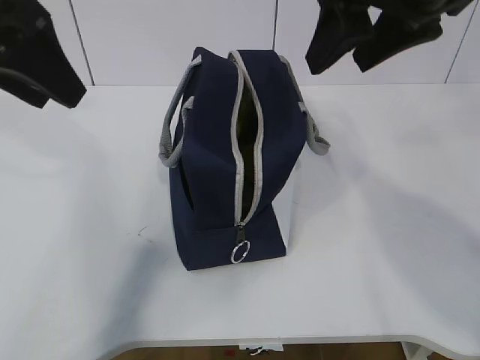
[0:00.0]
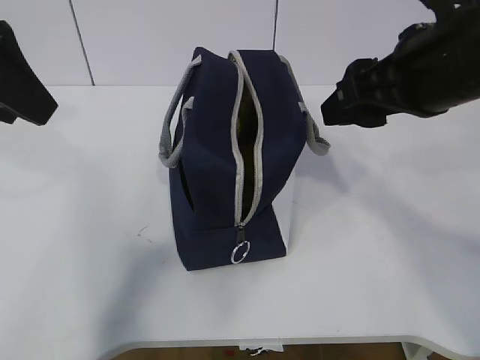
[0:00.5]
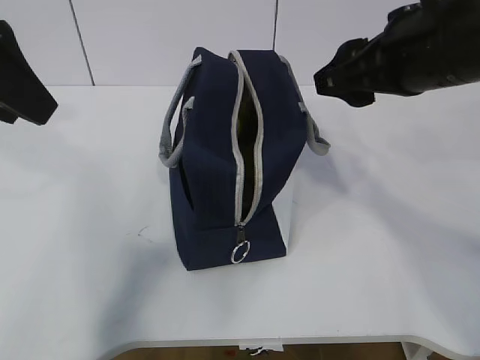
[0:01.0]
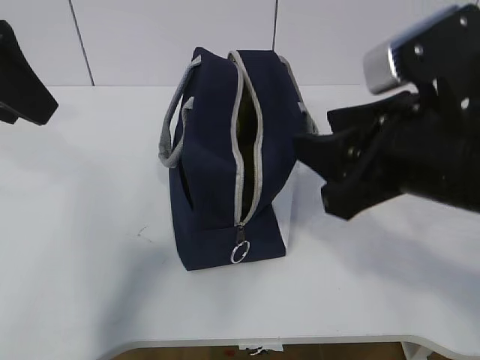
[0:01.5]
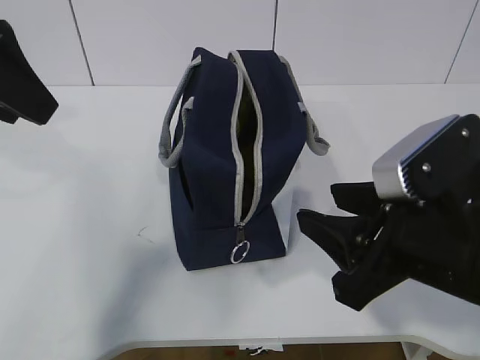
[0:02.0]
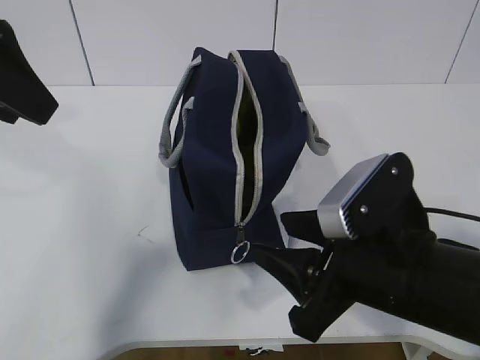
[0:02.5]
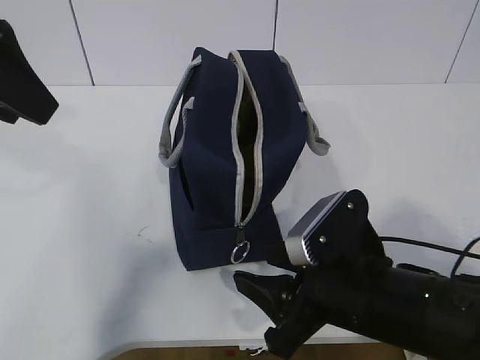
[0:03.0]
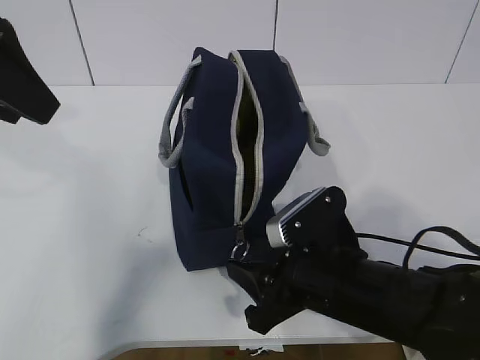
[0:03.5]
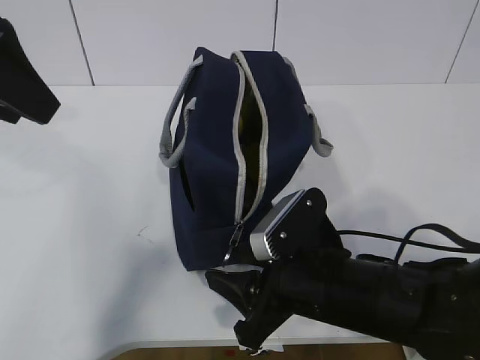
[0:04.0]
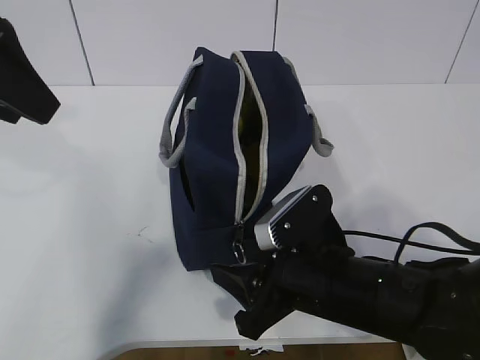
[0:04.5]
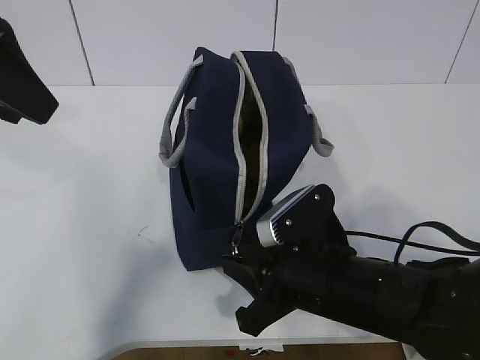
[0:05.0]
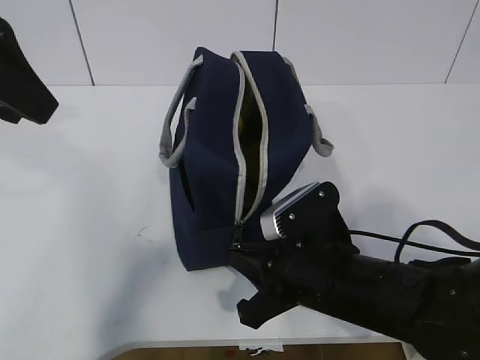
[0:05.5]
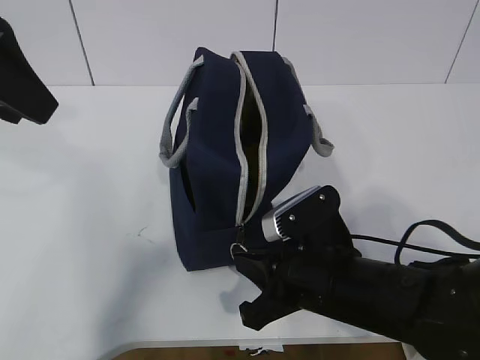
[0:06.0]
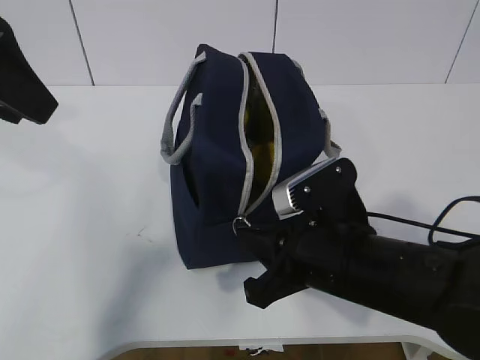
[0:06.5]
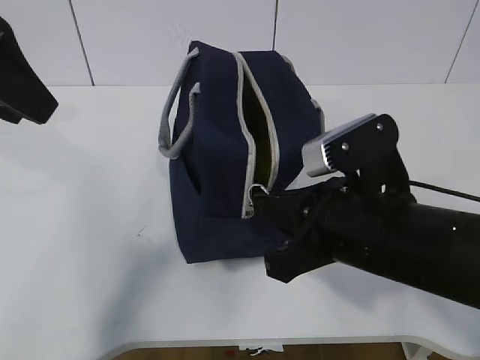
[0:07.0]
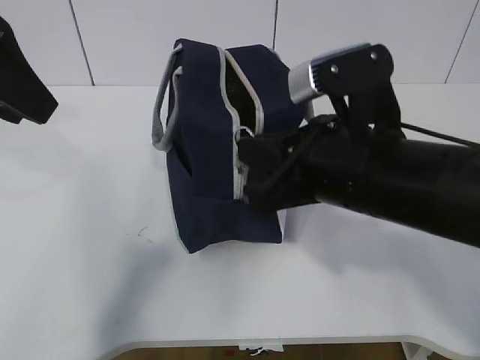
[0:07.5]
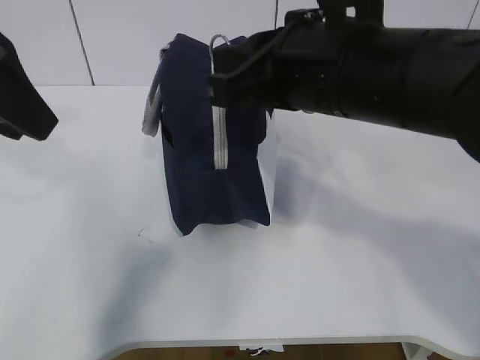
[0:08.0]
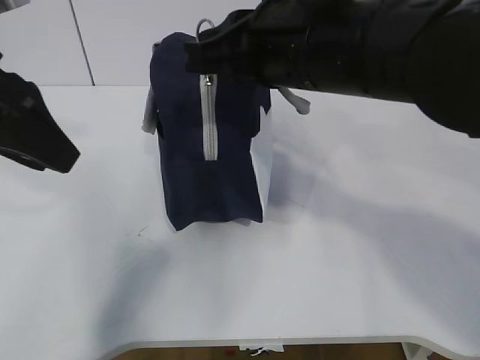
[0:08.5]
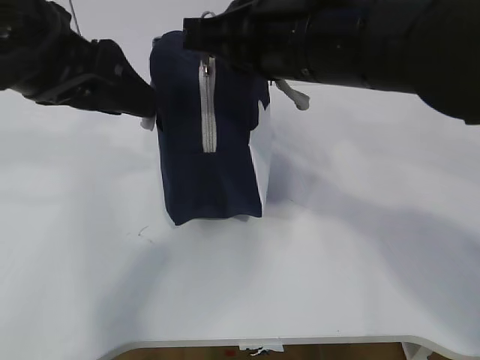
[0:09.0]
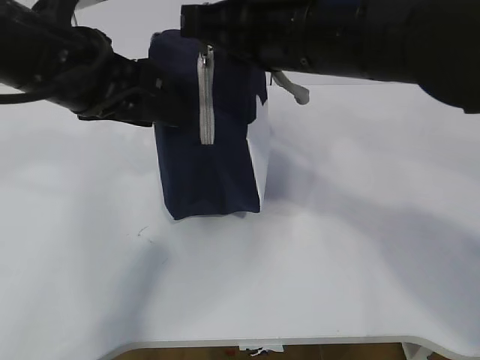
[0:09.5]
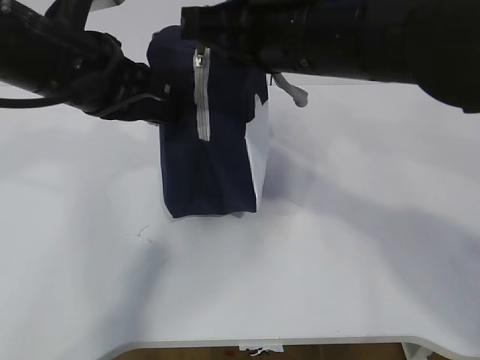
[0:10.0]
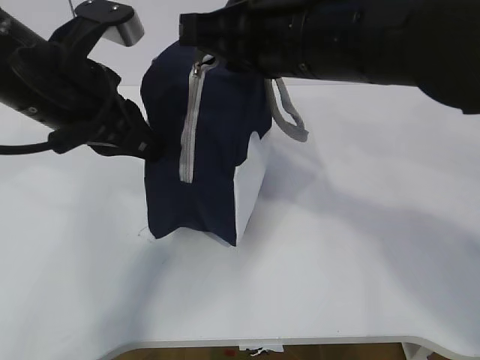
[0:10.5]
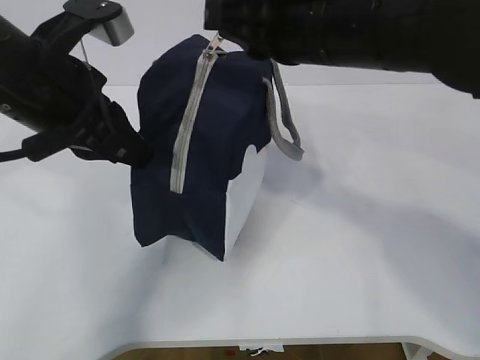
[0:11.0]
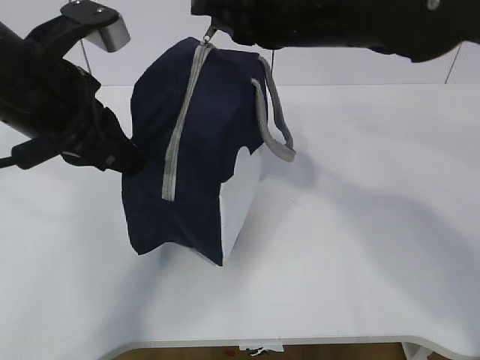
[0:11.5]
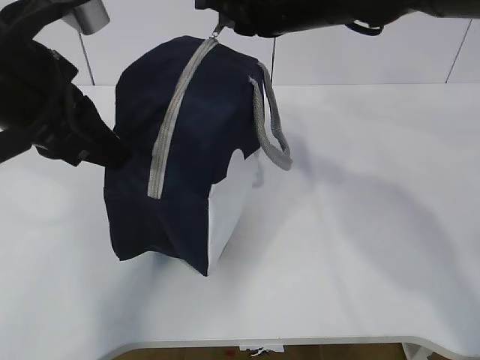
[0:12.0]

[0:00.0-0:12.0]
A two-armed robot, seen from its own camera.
Step, 0:06.0 to 0:08.5: Pull the zipper with your right hand.
0:00.0 to 0:02.0: The right gripper goes some 20 cm downward and backward.
0:02.0 to 0:04.0: The right gripper shifts some 10 cm downward and to the left.
0:04.0 to 0:06.0: The right gripper closes.
0:06.0 to 0:08.0: The right gripper travels upward by about 20 cm.
0:08.0 to 0:10.0: The left gripper heads downward and to the right, covering roughly 10 cm, and closes its fingers.
0:10.0 to 0:12.0: The left gripper changes place by roughly 5 cm; the right gripper moves forward, some 10 cm.

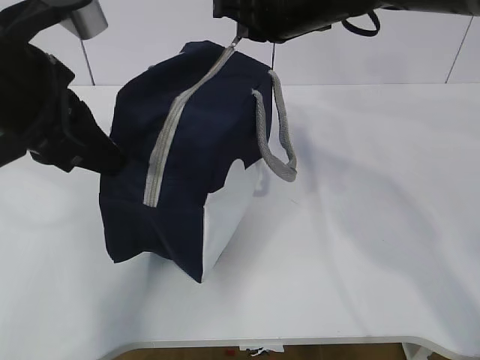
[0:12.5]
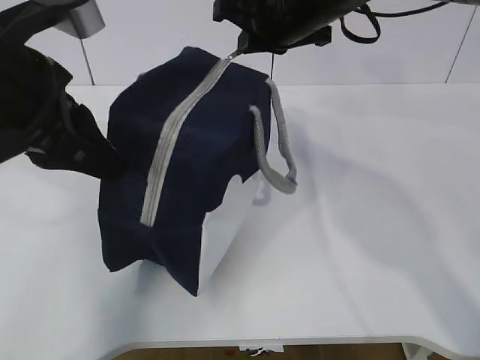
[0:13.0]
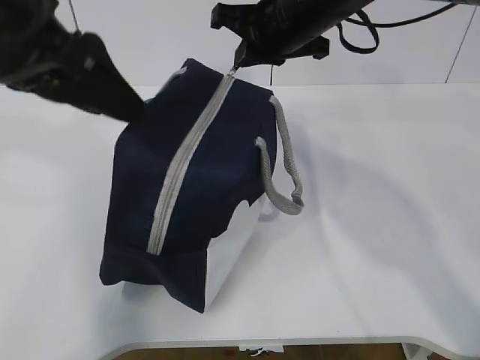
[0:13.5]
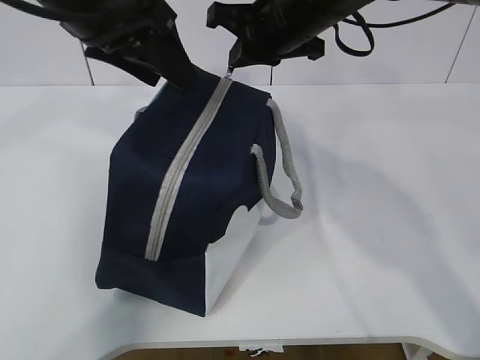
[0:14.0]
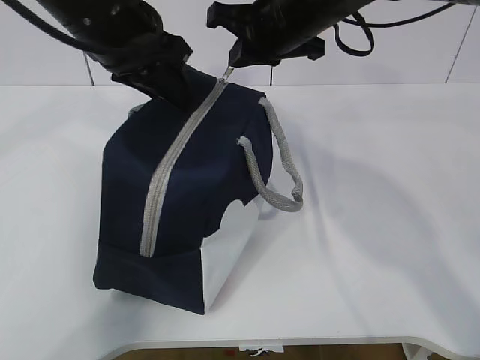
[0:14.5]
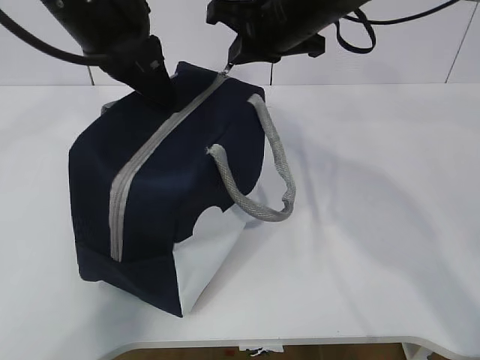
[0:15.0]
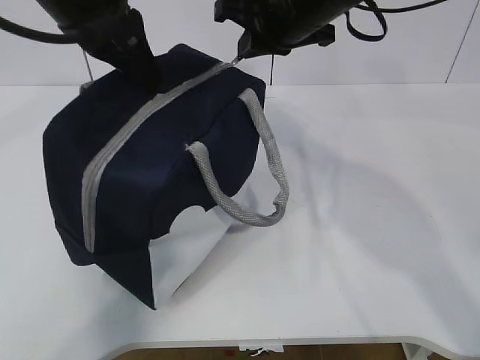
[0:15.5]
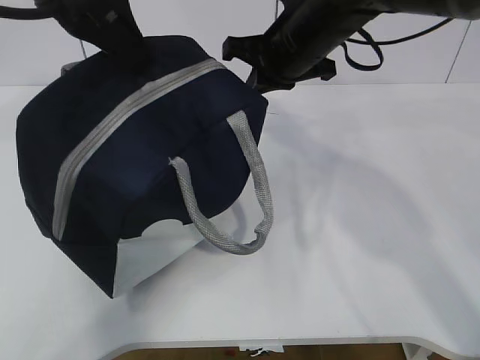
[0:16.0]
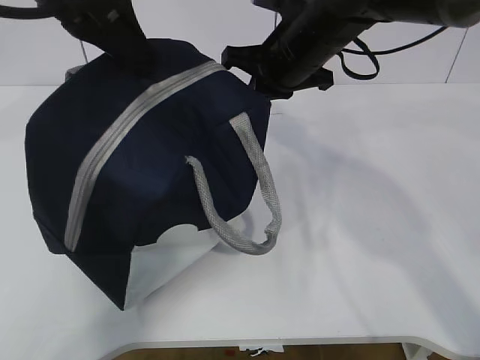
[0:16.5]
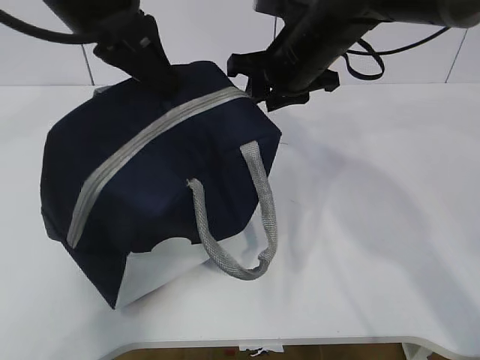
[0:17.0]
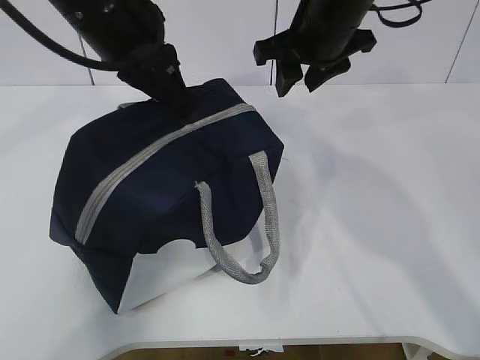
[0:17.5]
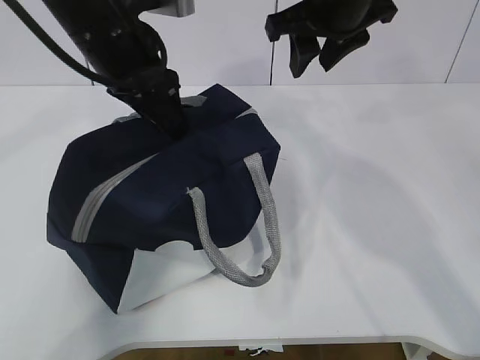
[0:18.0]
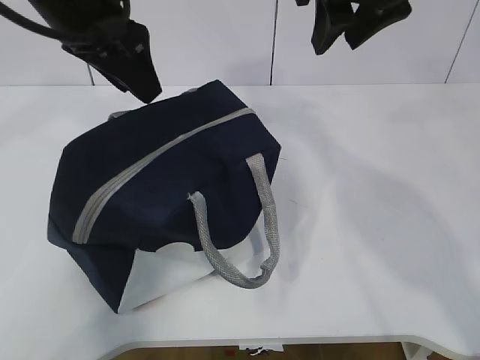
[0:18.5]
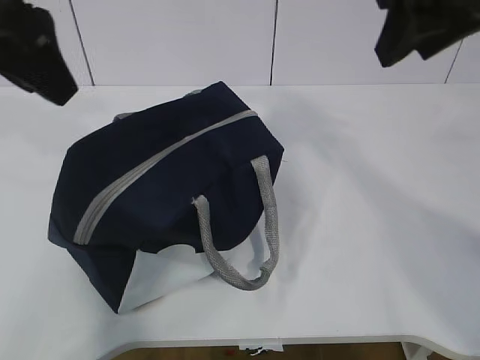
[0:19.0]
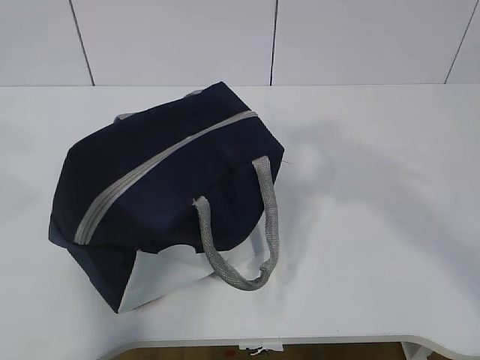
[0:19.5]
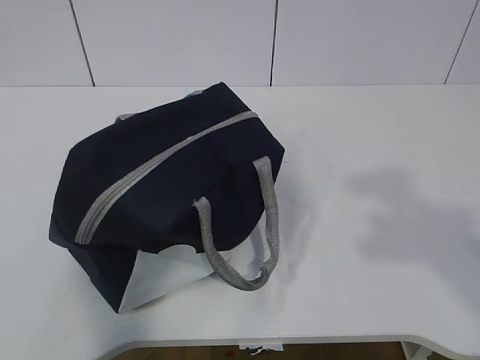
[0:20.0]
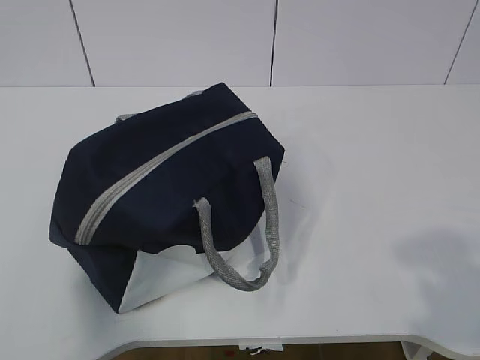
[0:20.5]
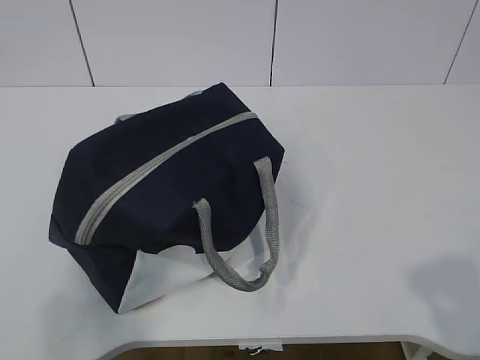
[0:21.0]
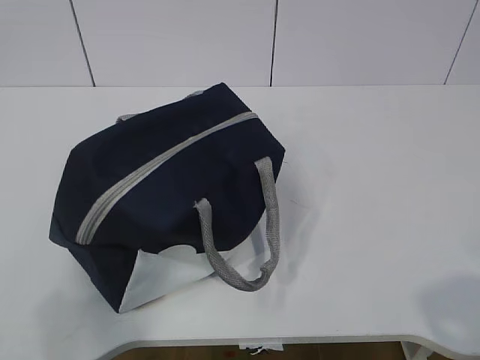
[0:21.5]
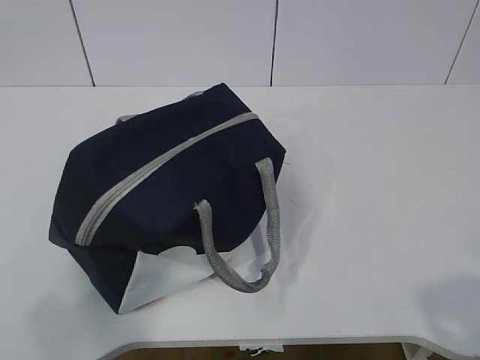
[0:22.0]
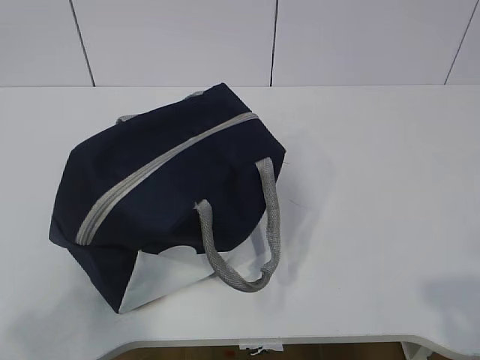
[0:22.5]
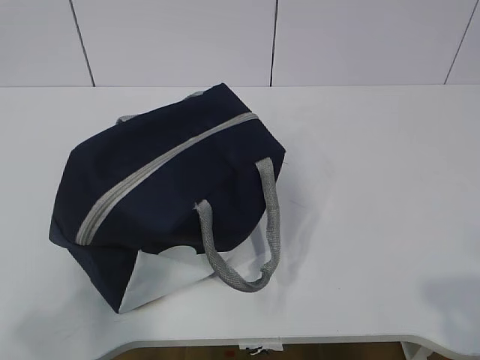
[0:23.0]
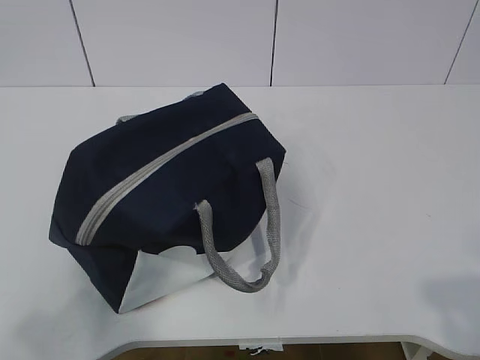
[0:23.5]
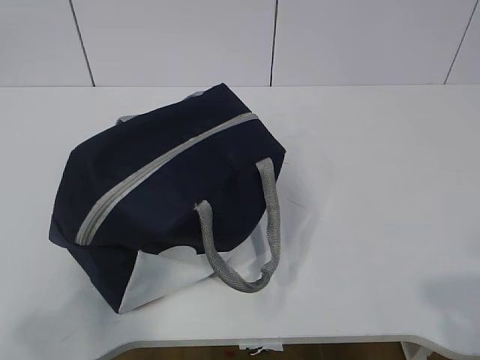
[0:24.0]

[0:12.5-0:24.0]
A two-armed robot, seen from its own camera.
0:12.5 to 0:14.5: The left gripper heads forward, covering roughly 10 cm, and opens its fingers.
0:14.5 to 0:16.5: The left gripper heads upward, covering about 5 cm, and closes.
0:16.5 to 0:18.5: The left gripper opens; the right gripper heads upward and backward, covering about 15 cm, and opens up.
0:18.5 to 0:20.0: The right gripper travels backward and to the right by approximately 35 cm. Meanwhile the left gripper is displaced backward and to the left by some 35 cm.
0:20.0 to 0:22.0: The left gripper goes about 15 cm downward. Meanwhile the right gripper travels downward and backward by some 15 cm.

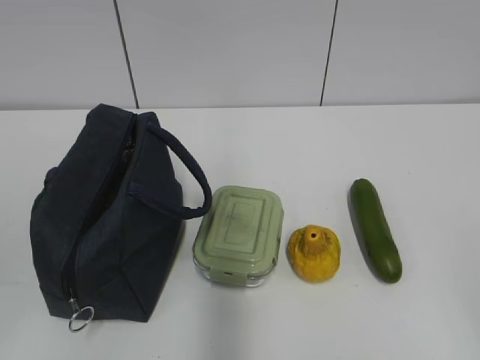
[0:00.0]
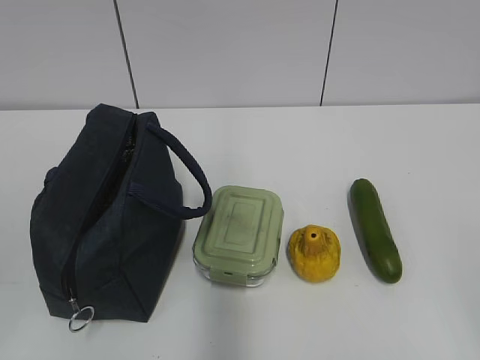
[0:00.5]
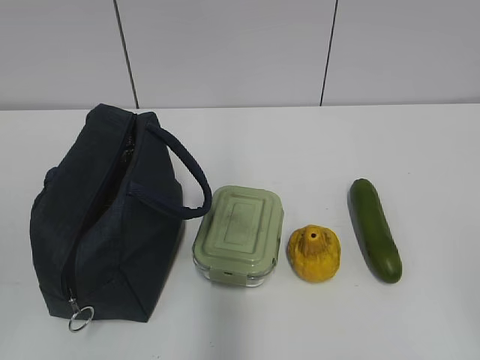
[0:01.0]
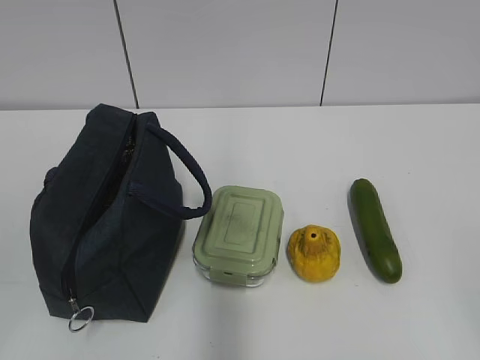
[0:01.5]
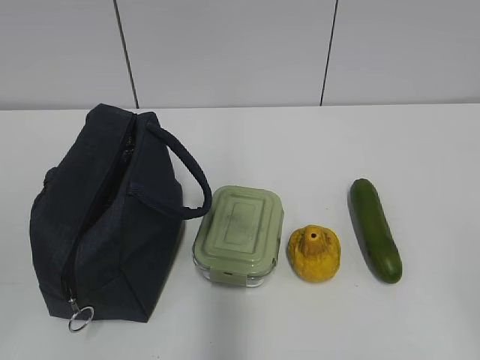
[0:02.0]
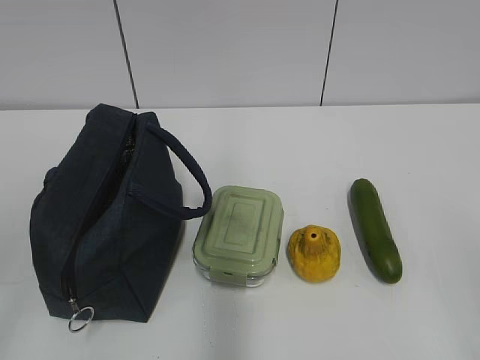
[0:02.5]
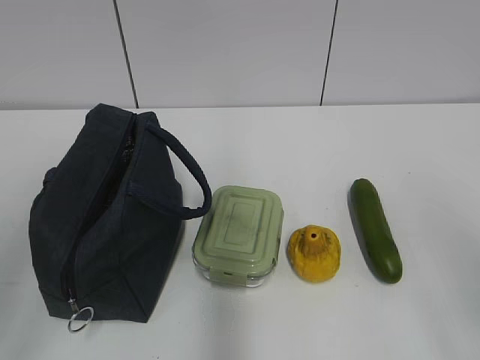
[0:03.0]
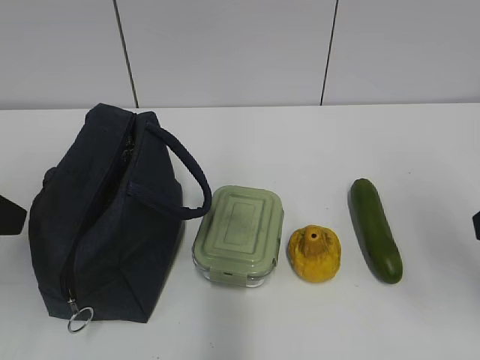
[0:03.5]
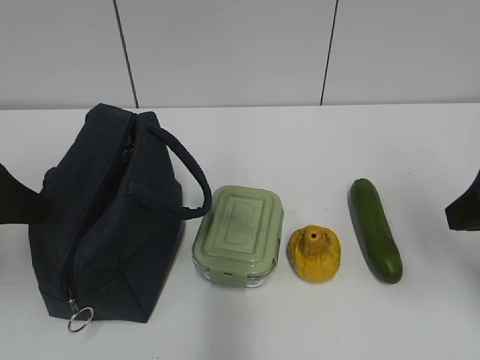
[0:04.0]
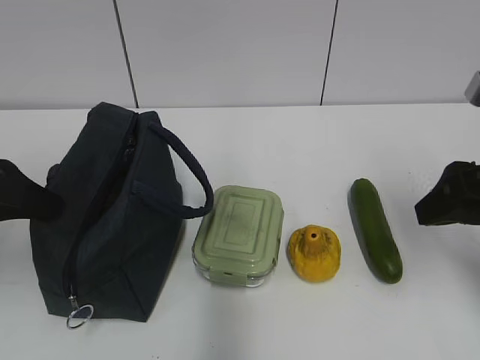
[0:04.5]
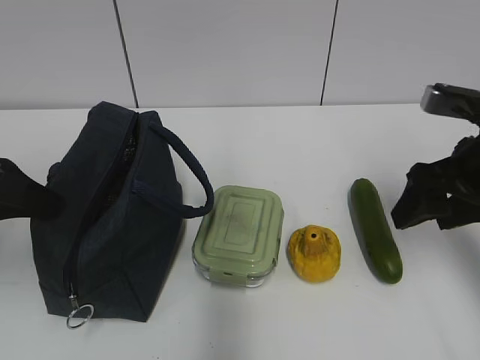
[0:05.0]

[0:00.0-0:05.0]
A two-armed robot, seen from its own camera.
0:02.5 to 0:05.0: The two grippers go some 25 cm forward. The left gripper closes its fingers.
